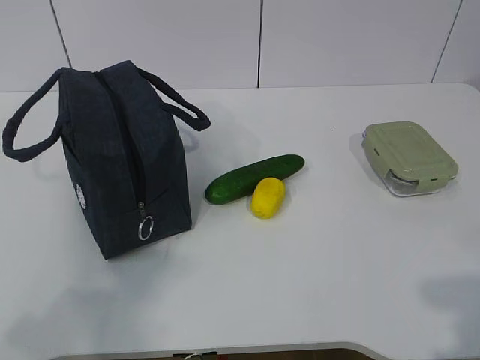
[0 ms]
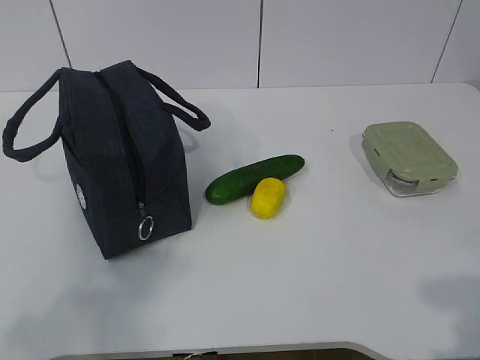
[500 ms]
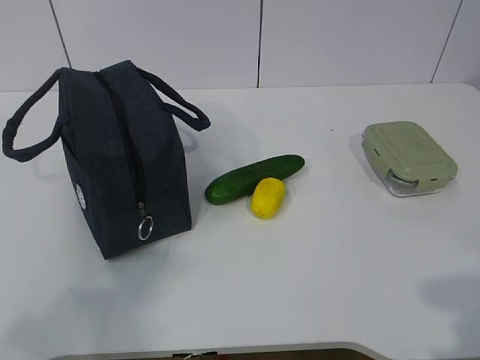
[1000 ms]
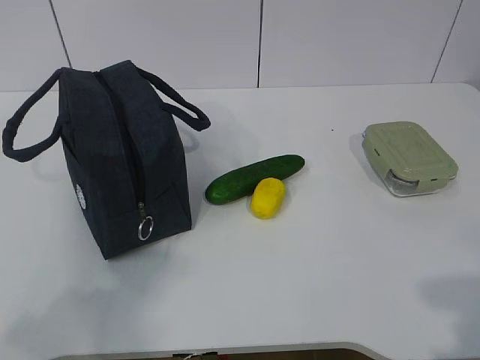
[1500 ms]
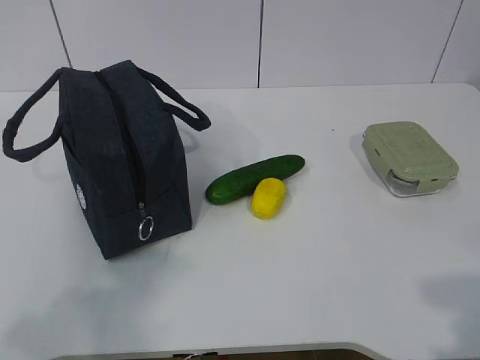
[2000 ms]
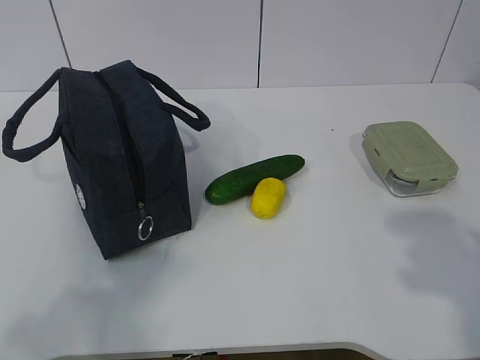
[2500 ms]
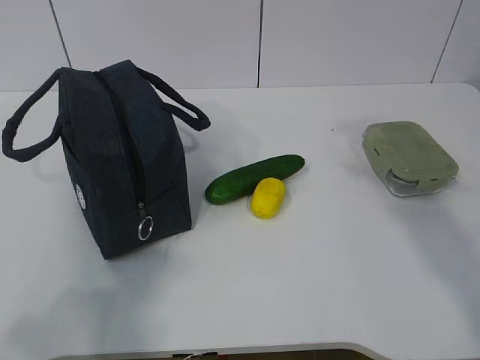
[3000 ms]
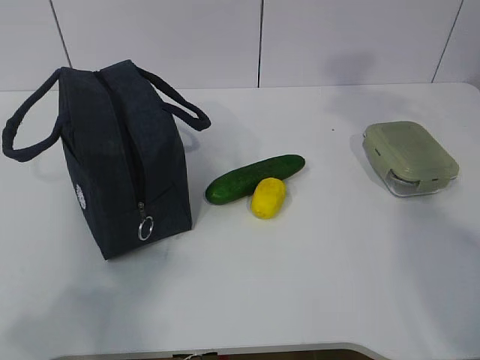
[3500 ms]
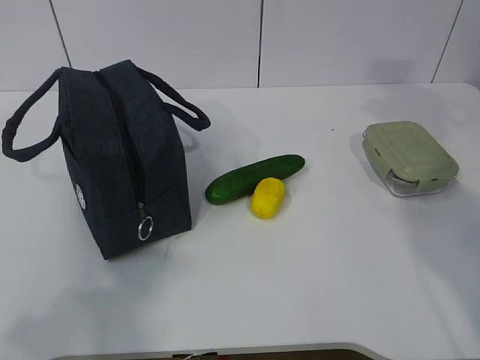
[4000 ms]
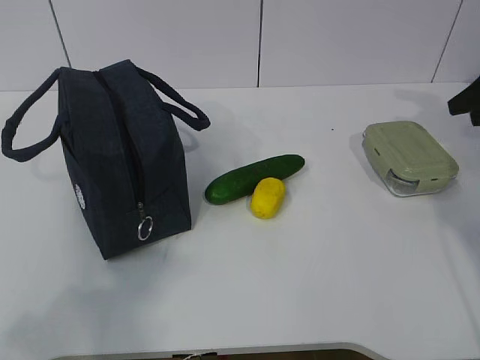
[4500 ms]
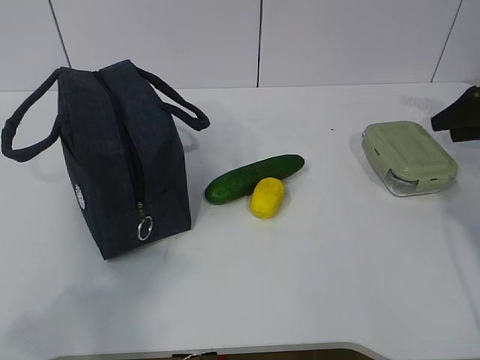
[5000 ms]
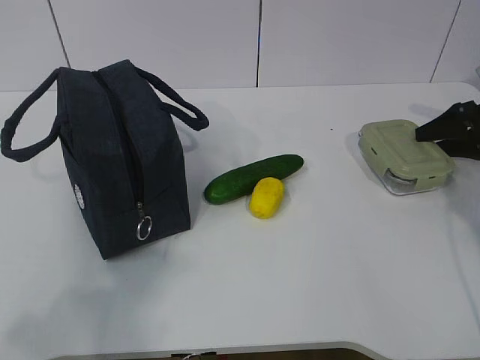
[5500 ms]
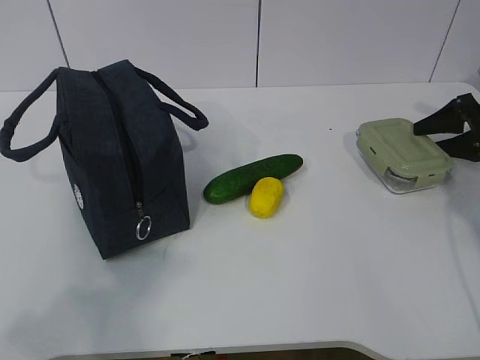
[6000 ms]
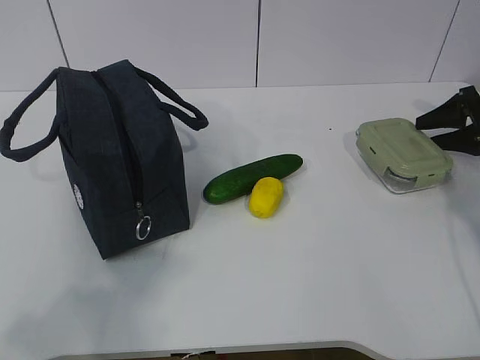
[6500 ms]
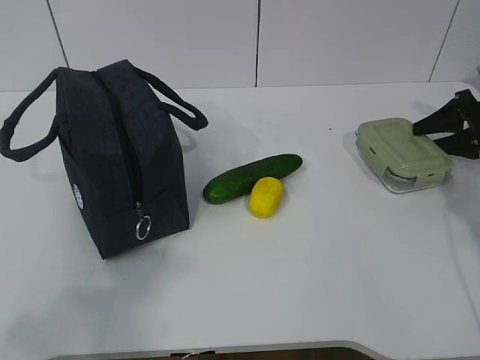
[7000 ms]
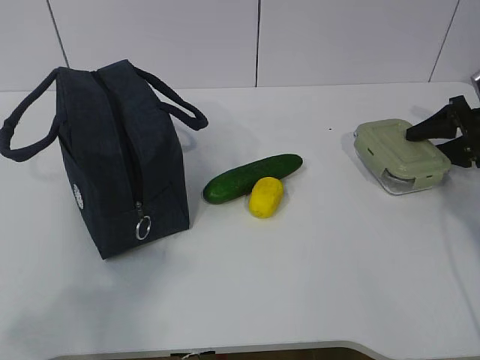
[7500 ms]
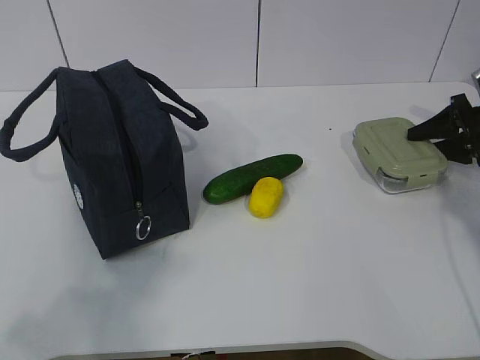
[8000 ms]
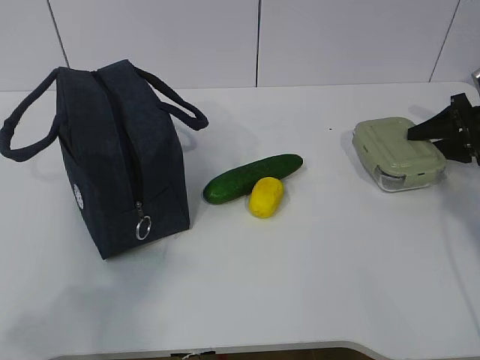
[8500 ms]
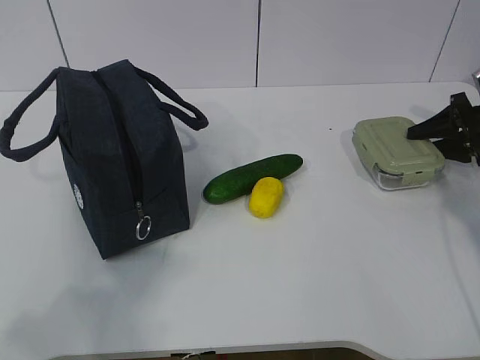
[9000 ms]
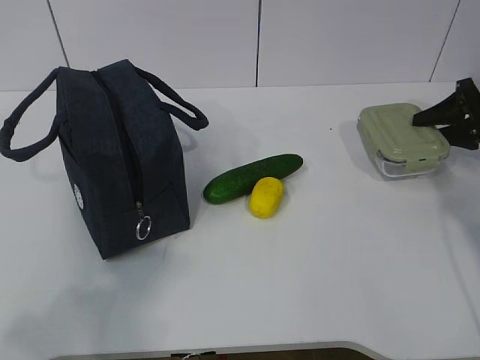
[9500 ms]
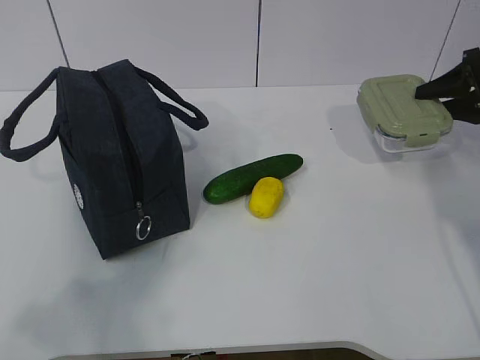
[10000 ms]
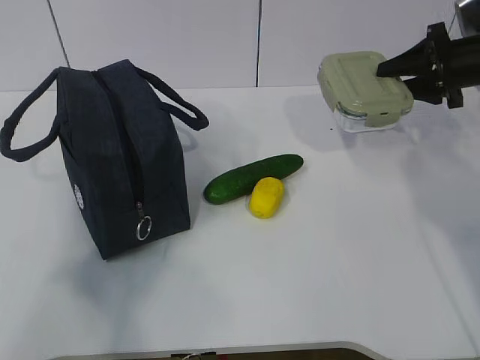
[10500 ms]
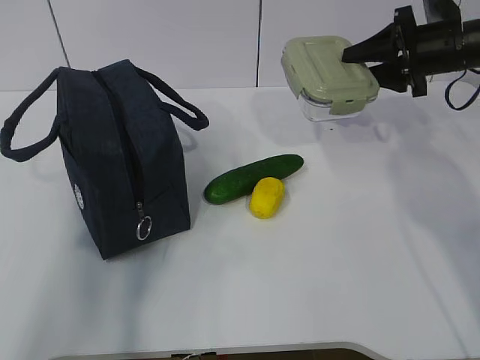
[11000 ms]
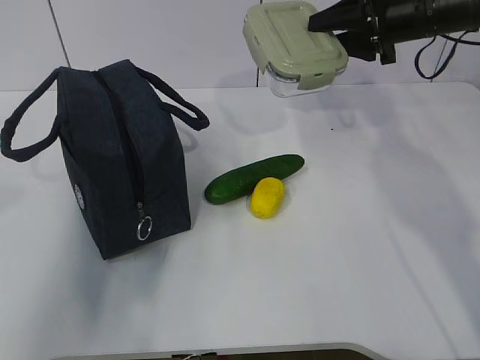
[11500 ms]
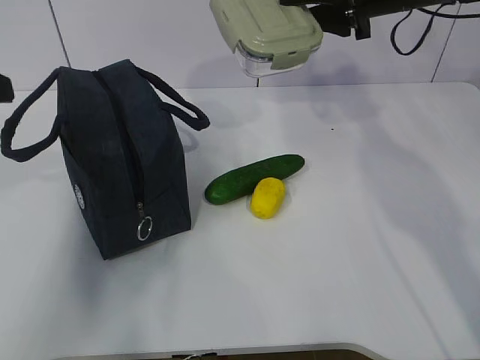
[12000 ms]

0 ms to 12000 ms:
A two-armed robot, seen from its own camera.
Step, 0 ms to 7500 ms: Grab the lunch box with your right hand.
2000 ms to 4000 ms: The right gripper moves forward, roughly 35 cm, and opens.
4000 ms to 6000 ms: The right gripper goes approximately 25 cm downward and forward.
6000 ms to 8000 ms: There are only small adjustments of the grippers.
8000 ms to 10000 ms: The right gripper is displaced upward by some 5 cm.
10000 ms to 12000 ms: The right gripper moves to the left and upward, approximately 20 cm. Meanwhile the left gripper heads forward, covering some 20 cm, and opens.

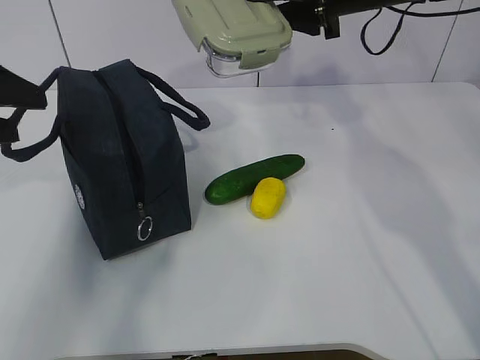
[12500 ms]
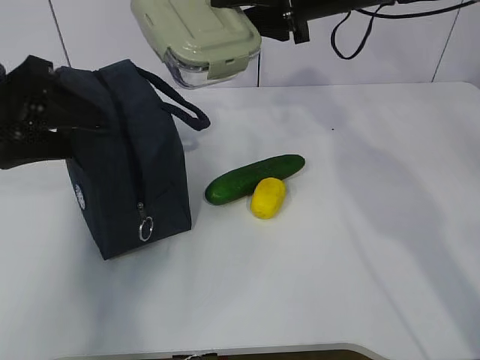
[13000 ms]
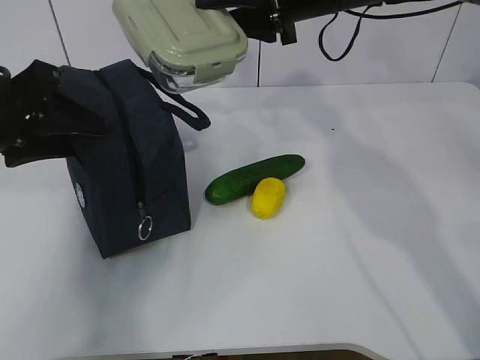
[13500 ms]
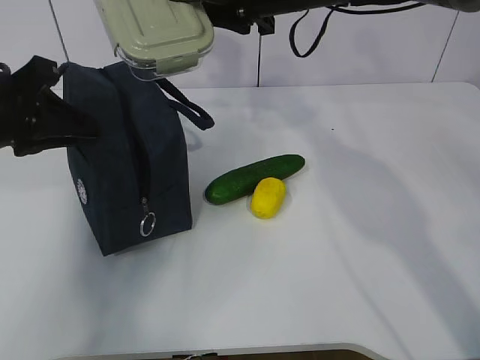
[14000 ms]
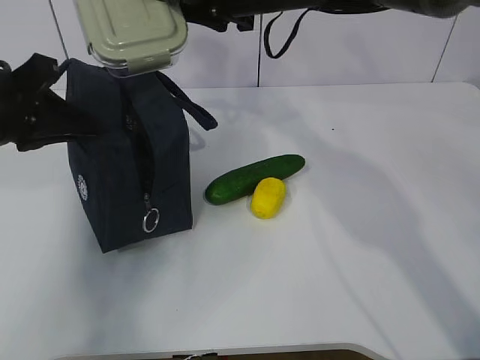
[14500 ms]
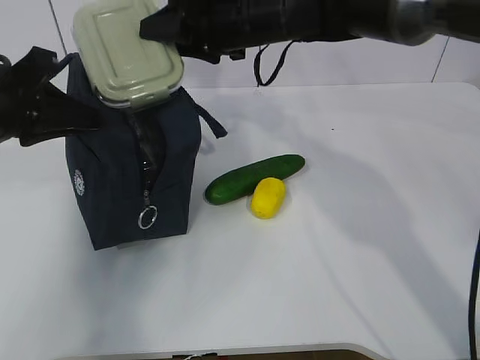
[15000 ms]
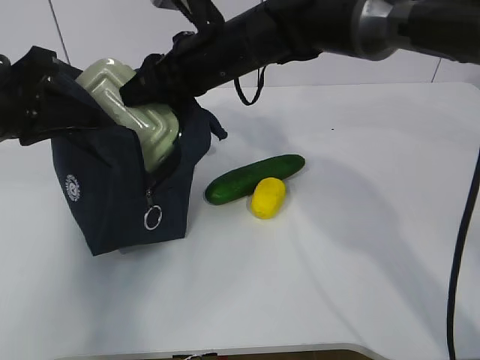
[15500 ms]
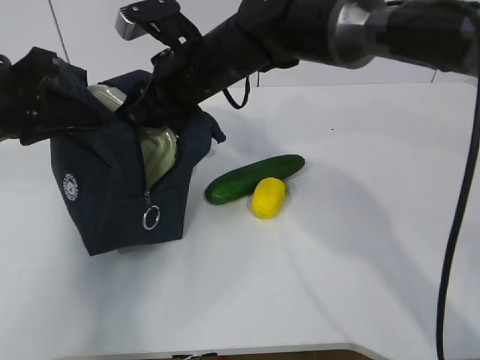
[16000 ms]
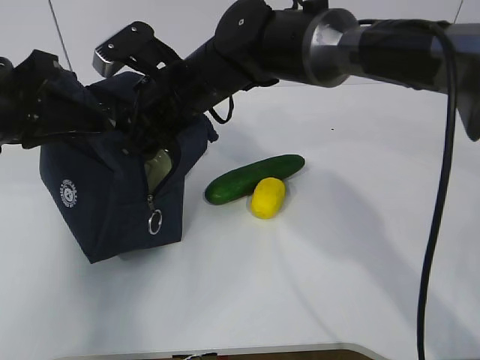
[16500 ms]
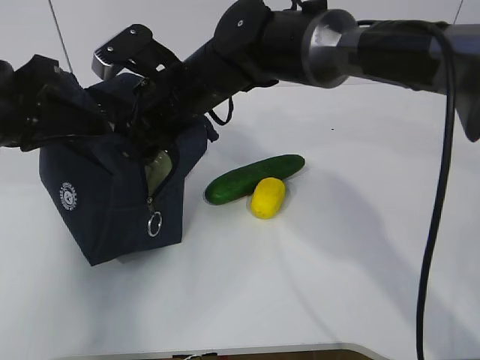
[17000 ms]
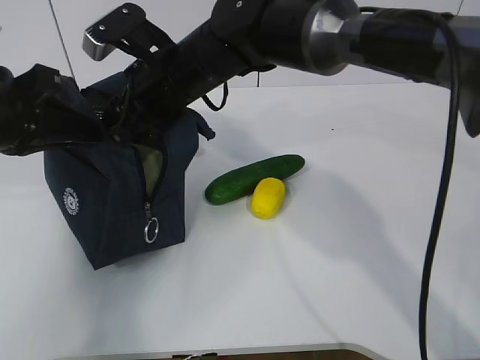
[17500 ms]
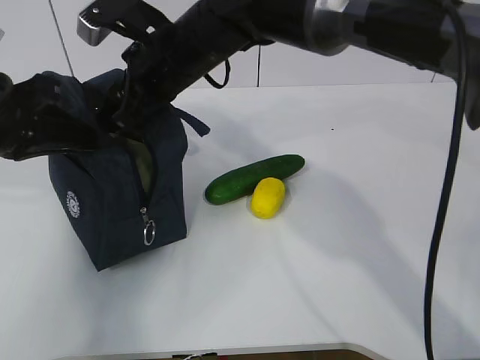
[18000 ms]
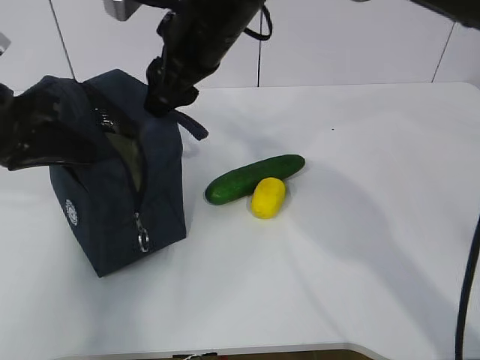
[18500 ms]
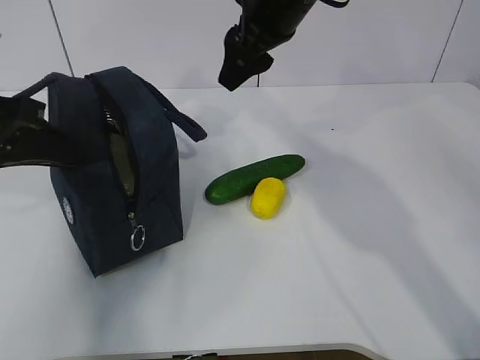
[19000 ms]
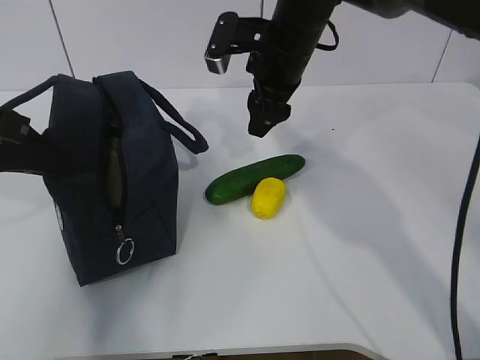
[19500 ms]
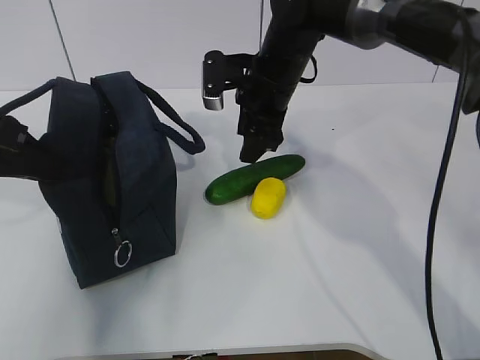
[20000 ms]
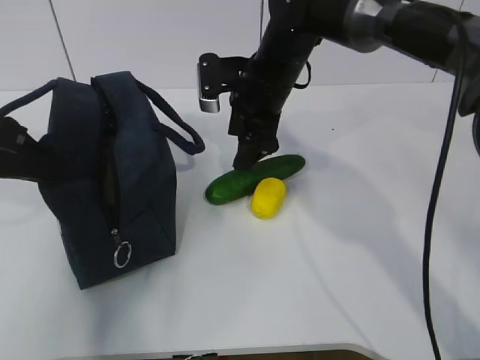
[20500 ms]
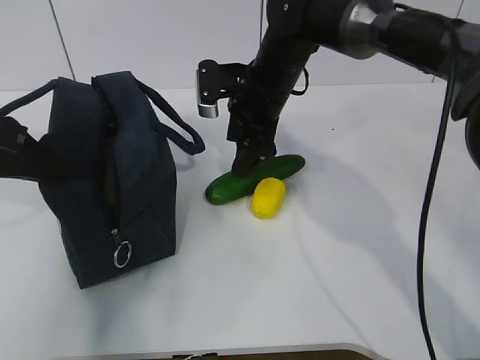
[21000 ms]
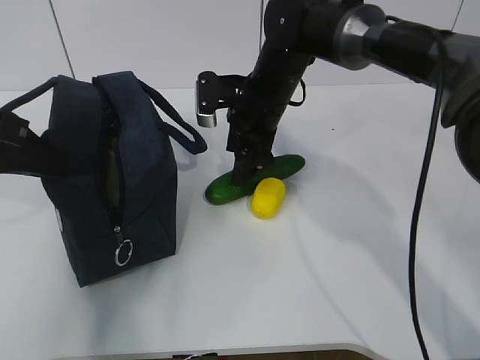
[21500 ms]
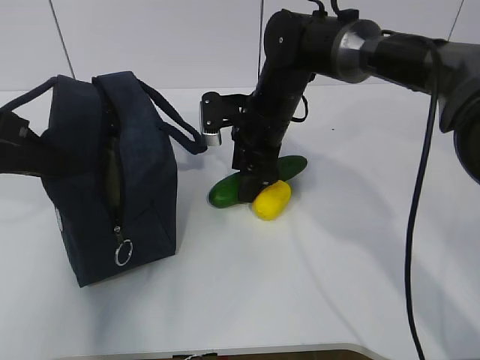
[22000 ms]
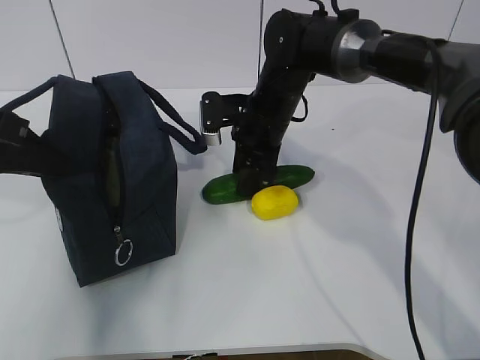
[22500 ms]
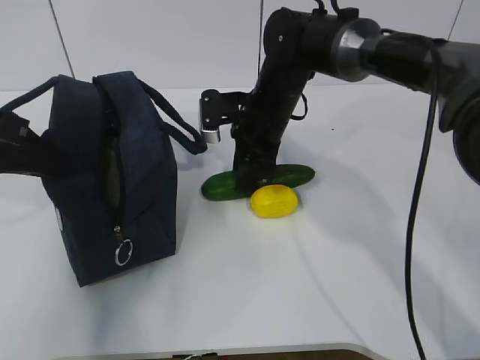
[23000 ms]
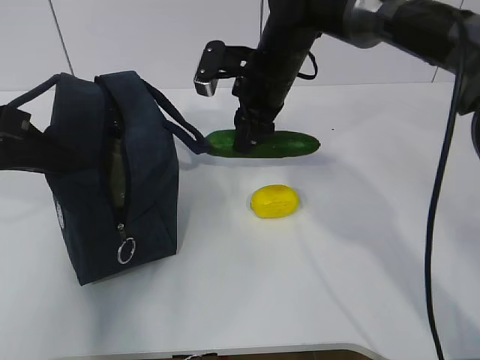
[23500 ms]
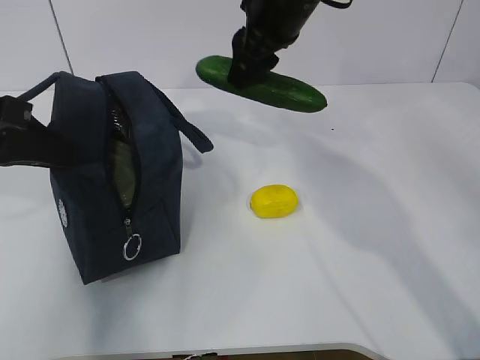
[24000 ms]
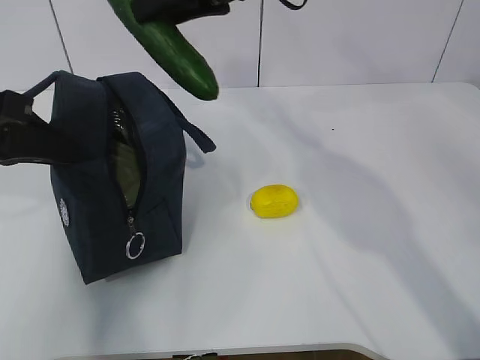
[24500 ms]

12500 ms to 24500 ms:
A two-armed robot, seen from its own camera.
Step, 12500 ms to 14500 ms: Place it into the bag with your right hand.
Step, 15000 ms to 19000 ms: Grab the cucumber with your right hand.
12500 ms to 14500 ms: The right gripper goes approximately 10 cm to the left. The left gripper moves some 5 cm, and closes.
14500 ms to 16500 ms: The right gripper shifts about 15 cm downward and to the left.
16500 ms to 18500 ms: The right gripper shifts some 5 cm upward.
18500 ms to 20500 ms: The right gripper is displaced downward and to the right by about 10 cm.
20500 ms to 22500 ms: The grippers stay close to where they were, moving slightly.
22500 ms to 24500 ms: The right gripper travels upward by roughly 20 cm.

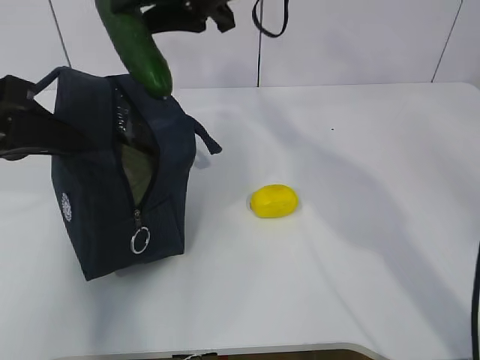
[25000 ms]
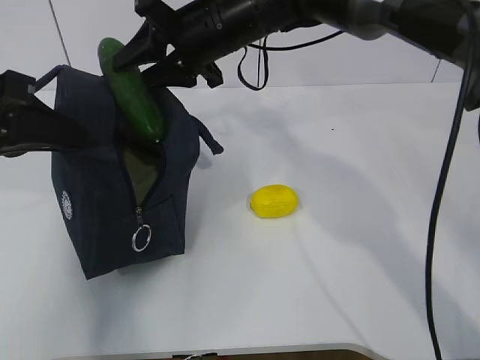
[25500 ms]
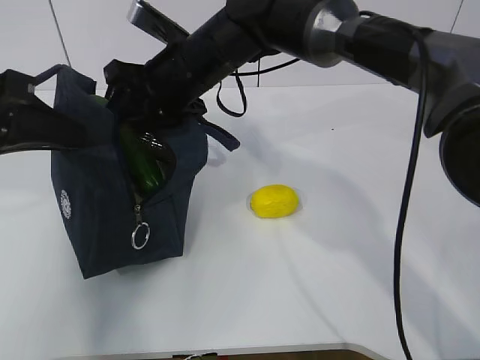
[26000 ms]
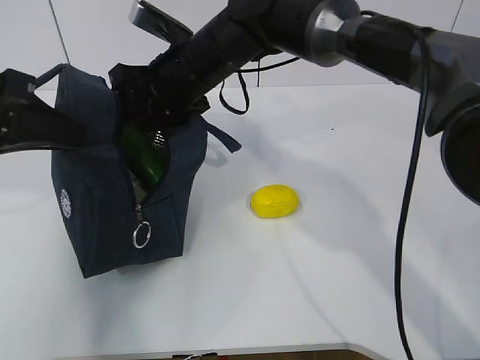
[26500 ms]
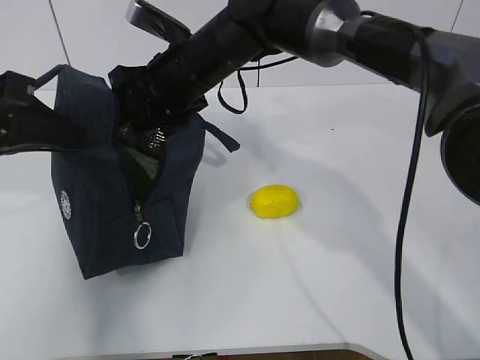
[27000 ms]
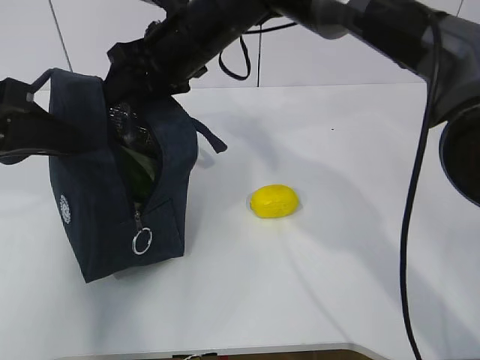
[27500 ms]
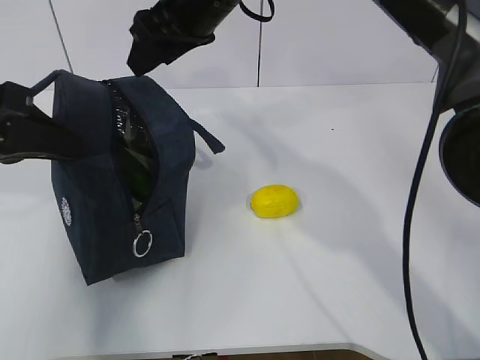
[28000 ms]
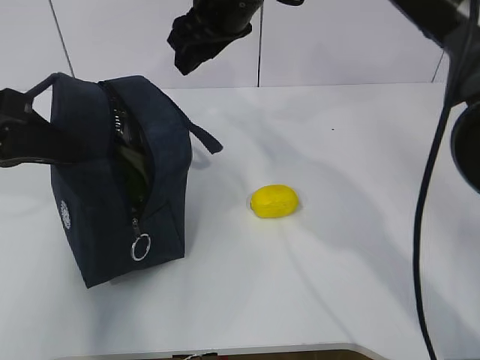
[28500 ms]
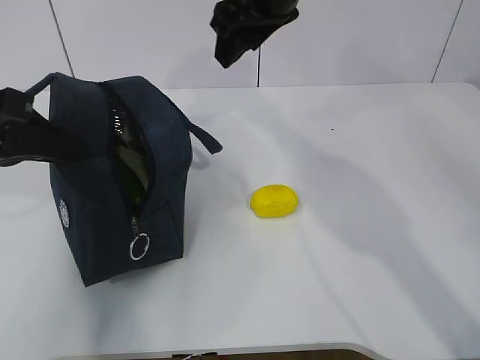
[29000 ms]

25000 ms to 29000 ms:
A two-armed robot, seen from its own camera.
Step, 27000 ms to 28500 ms: Grab the lemon with your right hand.
25000 ms to 27000 ms: The right gripper travels downward by approximately 10 cm.
27000 ms to 29000 ms: The right gripper shifts approximately 15 cm upward and to the right.
